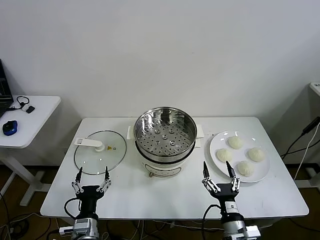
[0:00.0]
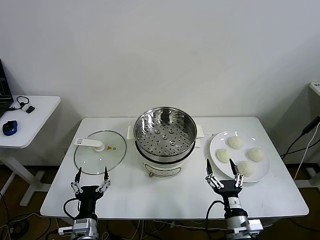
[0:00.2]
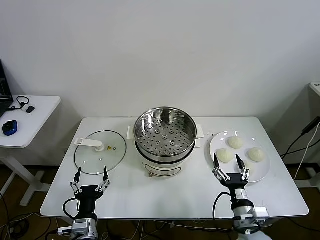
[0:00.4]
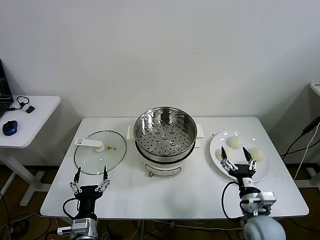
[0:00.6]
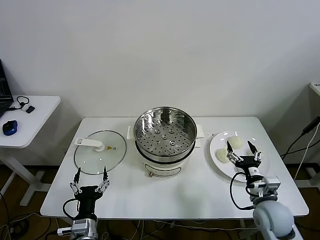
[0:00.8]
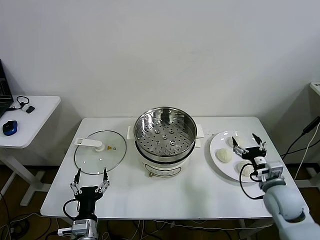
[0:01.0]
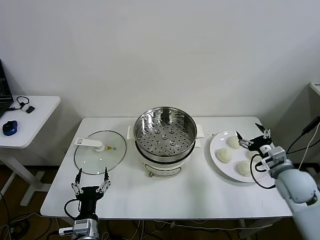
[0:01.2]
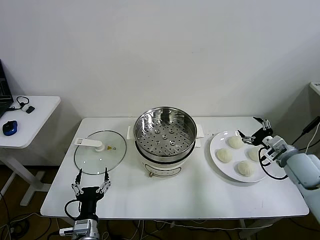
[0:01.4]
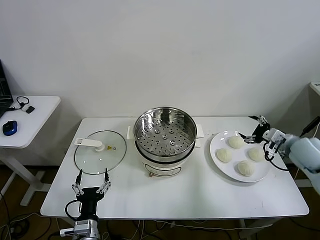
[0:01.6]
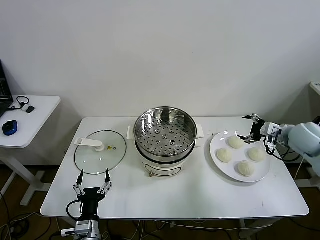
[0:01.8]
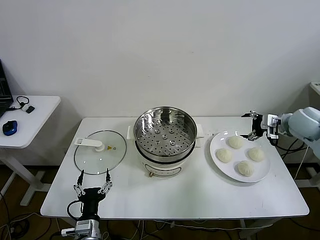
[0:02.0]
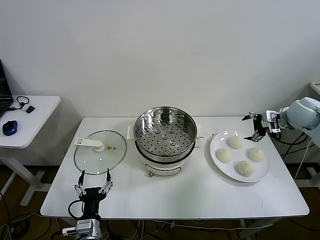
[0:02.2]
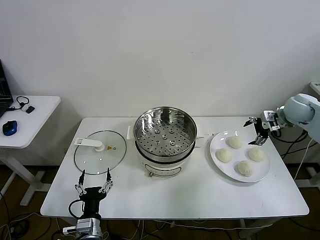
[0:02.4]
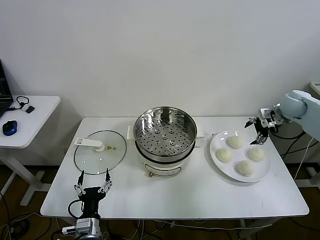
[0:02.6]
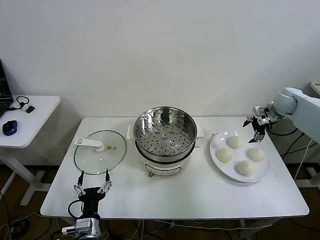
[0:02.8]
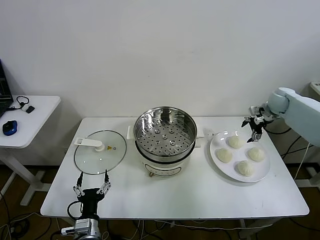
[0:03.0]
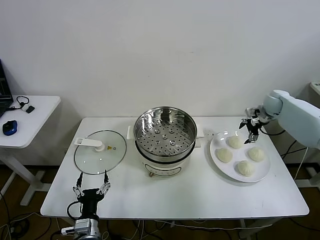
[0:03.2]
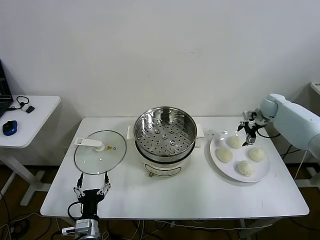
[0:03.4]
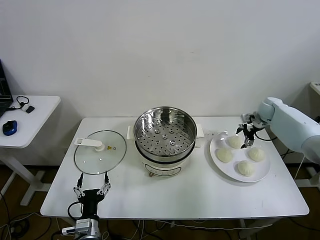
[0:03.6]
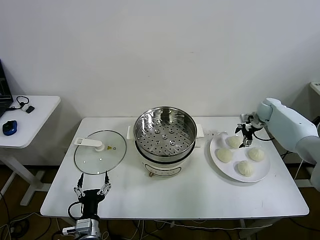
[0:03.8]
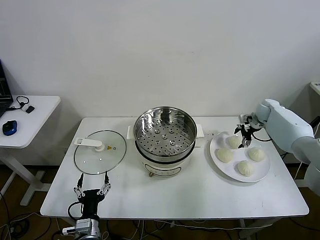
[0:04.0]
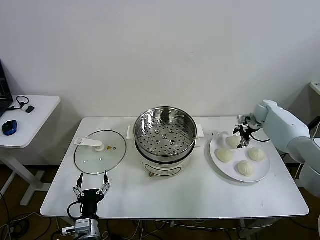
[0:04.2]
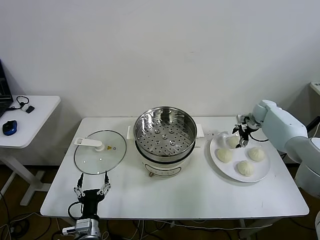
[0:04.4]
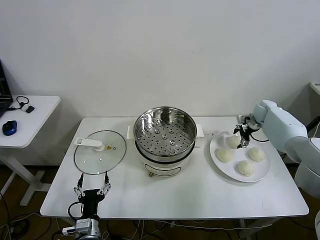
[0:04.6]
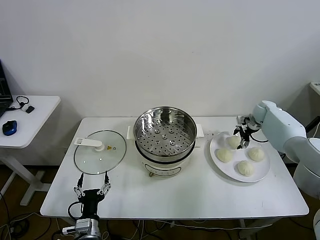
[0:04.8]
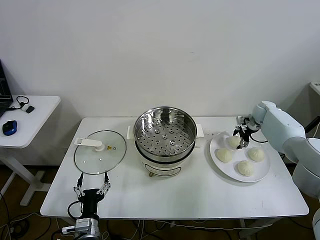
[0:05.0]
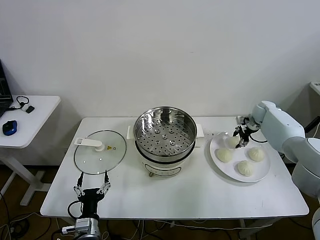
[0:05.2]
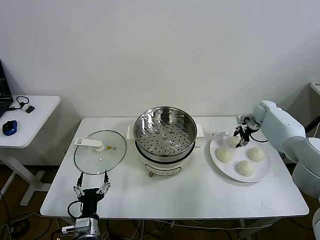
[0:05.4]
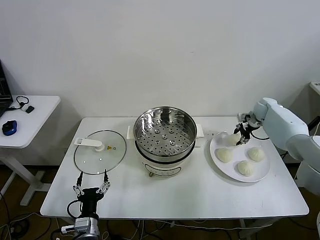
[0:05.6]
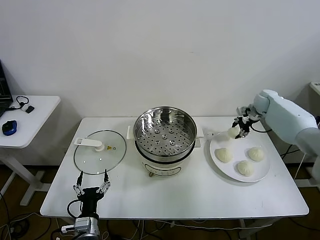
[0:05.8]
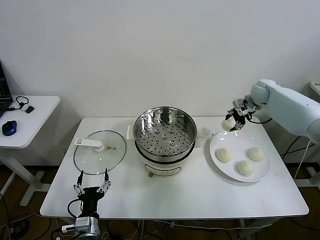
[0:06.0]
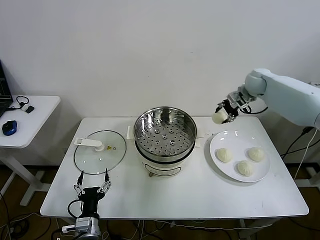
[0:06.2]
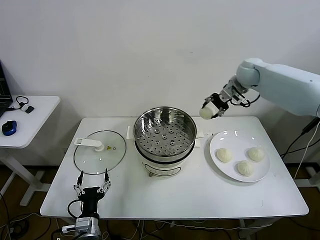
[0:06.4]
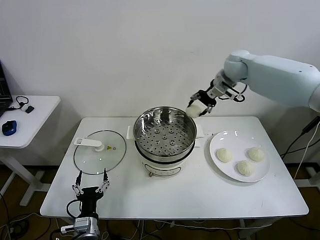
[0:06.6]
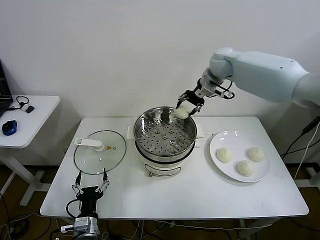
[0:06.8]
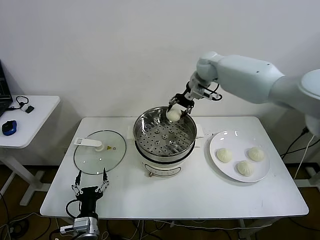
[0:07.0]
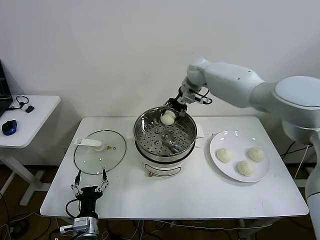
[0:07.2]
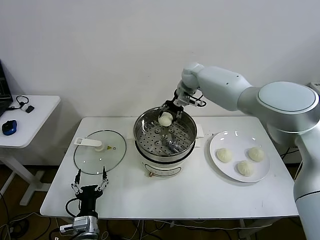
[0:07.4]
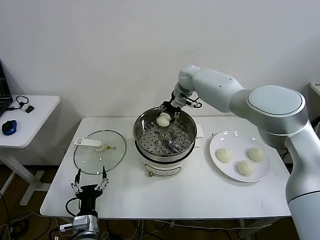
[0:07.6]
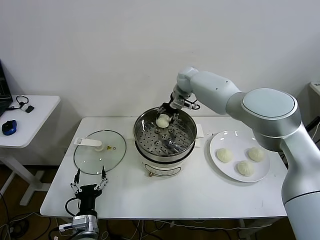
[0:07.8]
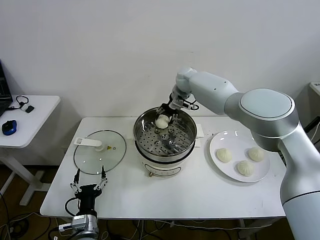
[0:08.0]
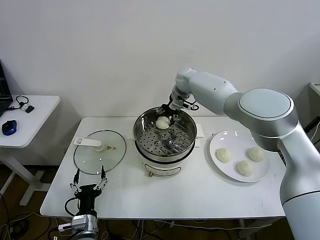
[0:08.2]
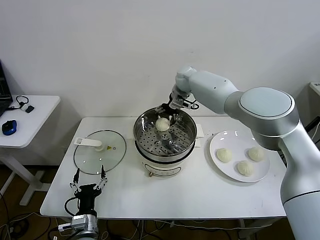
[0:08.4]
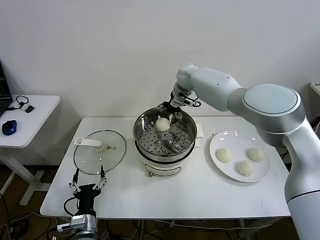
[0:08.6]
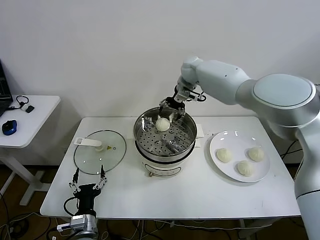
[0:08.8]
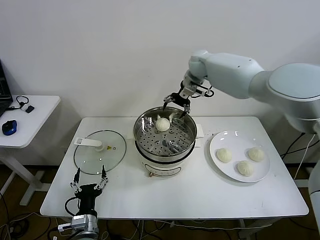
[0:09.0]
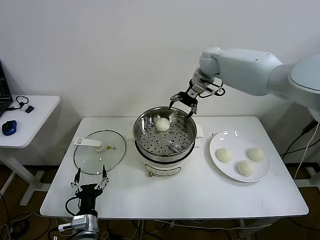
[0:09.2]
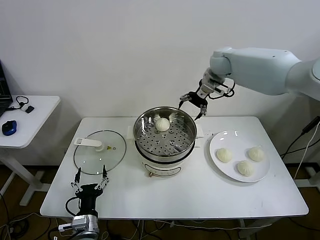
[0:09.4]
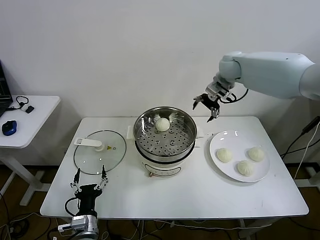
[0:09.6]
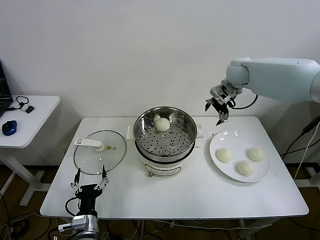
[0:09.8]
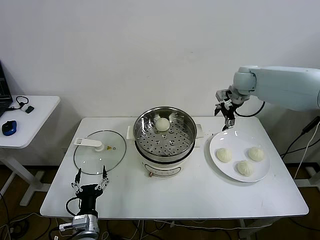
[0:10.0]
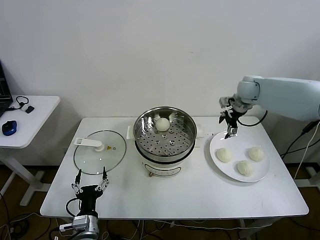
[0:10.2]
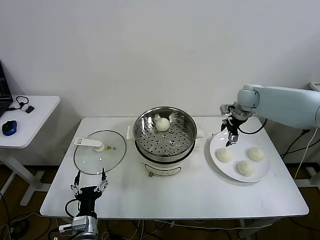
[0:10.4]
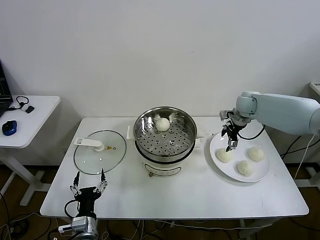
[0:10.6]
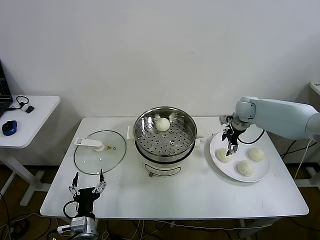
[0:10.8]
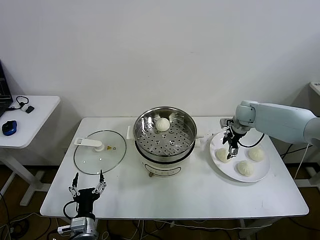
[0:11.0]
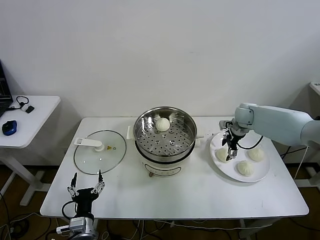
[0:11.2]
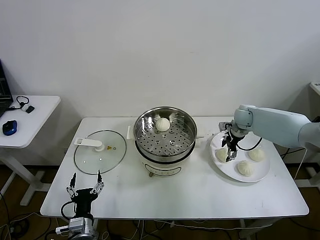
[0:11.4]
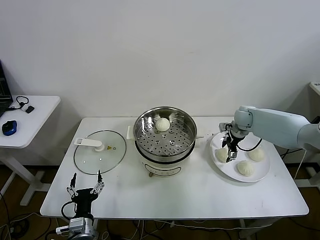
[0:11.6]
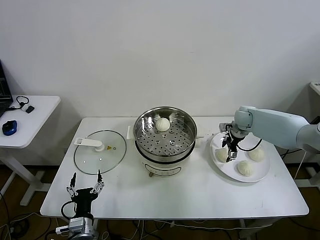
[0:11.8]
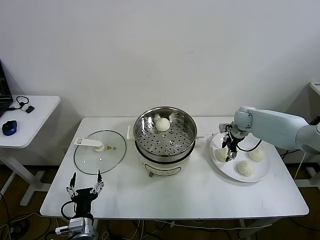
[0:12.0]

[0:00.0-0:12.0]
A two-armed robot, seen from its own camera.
Step, 0:00.0 to 0:05.2: Grasp the baozi in the plate with right gripper.
Step, 0:05.4 to 0:08.8: Place the baozi on the steamer with right gripper.
0:01.6 to 0:03.0: The right gripper heads forward, covering approximately 20 cm.
0:03.0 to 0:04.4: The right gripper is displaced downward by roughly 10 cm.
0:04.4 to 0:06.0: The right gripper travels upward by some 10 cm, and closes.
0:06.0 to 0:07.6: The right gripper heads to the left, covering about 30 cm.
0:07.6 to 0:09.0: The right gripper shifts approximately 5 cm upward, and opens its fingers.
0:09.0 to 0:10.4: The right gripper goes roughly 20 cm to the right, downward and backward.
0:10.4 to 0:12.0: The right gripper shifts about 10 cm downward.

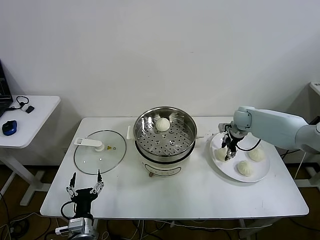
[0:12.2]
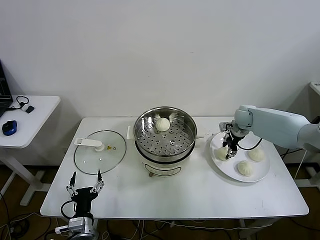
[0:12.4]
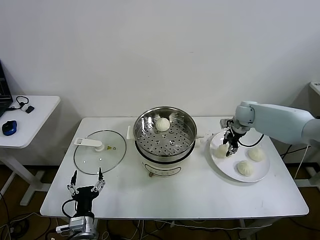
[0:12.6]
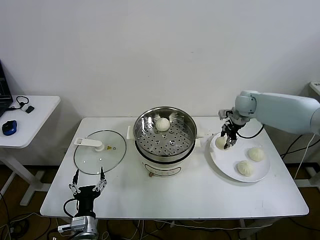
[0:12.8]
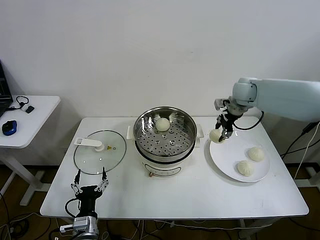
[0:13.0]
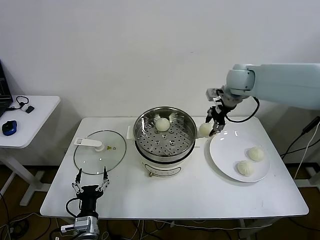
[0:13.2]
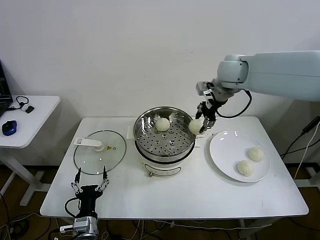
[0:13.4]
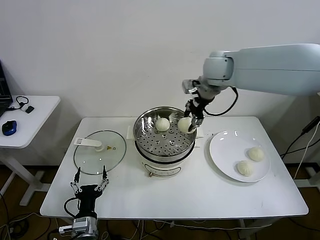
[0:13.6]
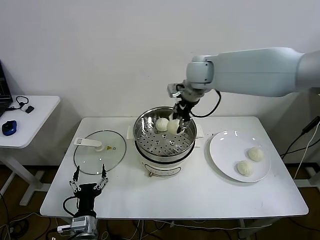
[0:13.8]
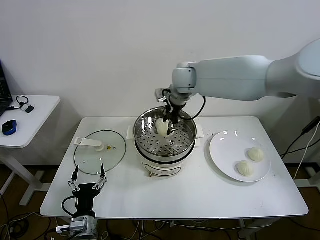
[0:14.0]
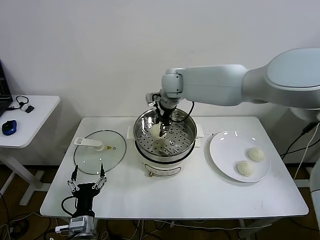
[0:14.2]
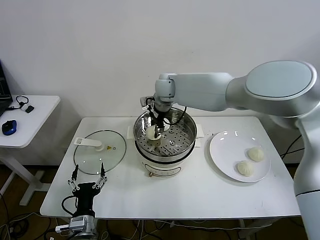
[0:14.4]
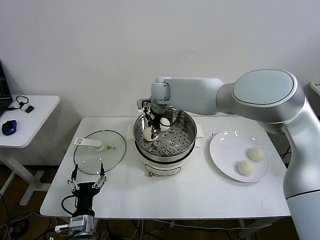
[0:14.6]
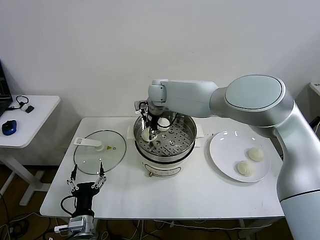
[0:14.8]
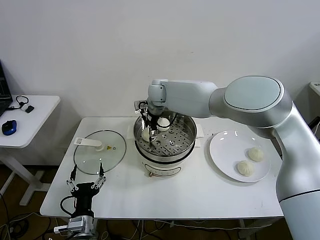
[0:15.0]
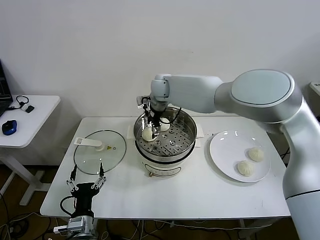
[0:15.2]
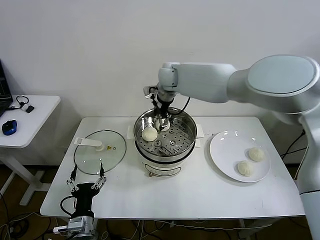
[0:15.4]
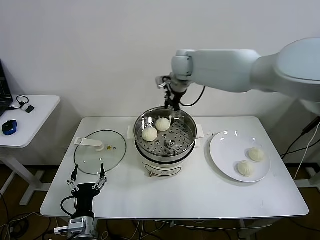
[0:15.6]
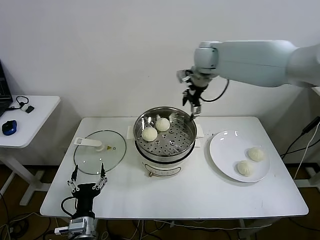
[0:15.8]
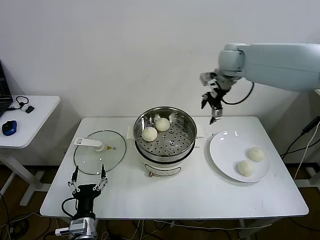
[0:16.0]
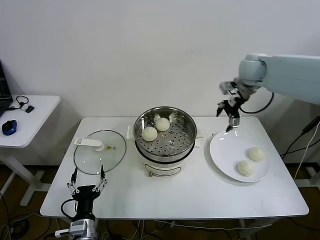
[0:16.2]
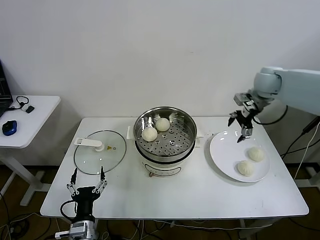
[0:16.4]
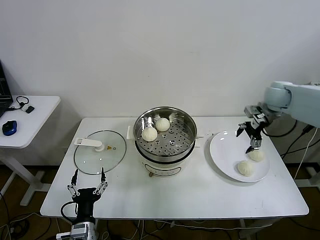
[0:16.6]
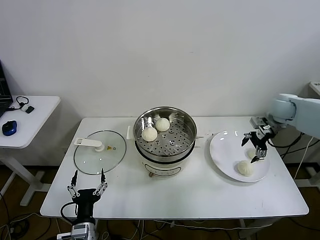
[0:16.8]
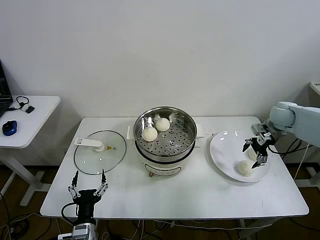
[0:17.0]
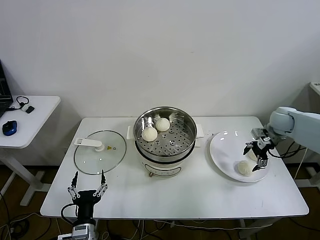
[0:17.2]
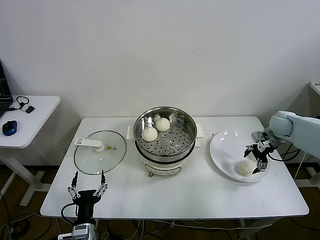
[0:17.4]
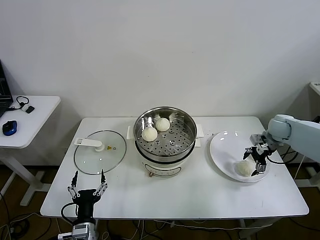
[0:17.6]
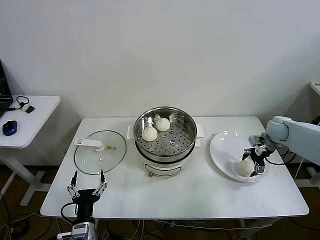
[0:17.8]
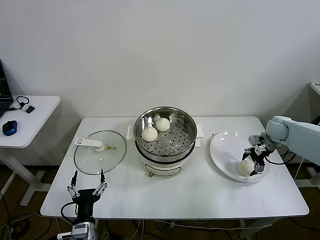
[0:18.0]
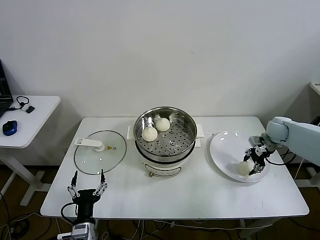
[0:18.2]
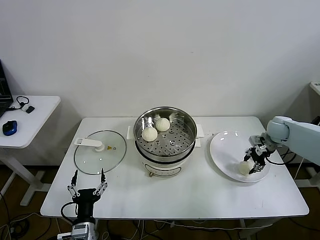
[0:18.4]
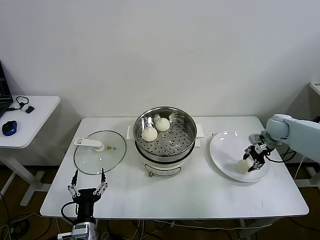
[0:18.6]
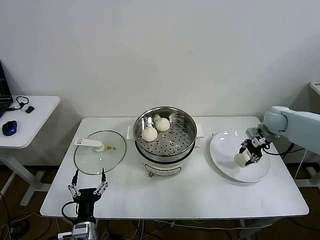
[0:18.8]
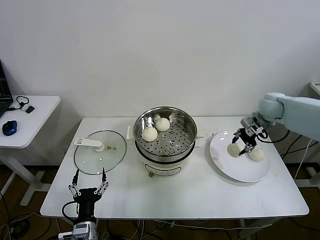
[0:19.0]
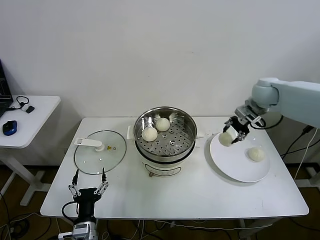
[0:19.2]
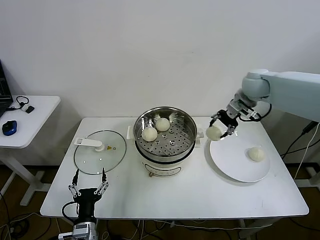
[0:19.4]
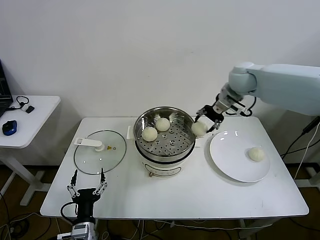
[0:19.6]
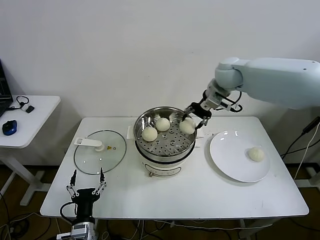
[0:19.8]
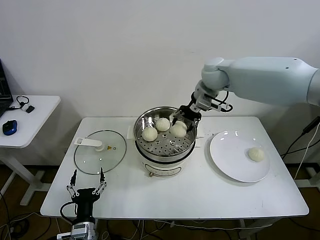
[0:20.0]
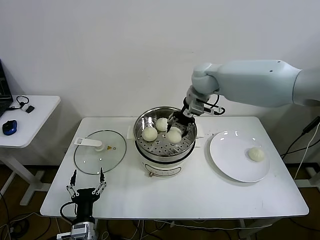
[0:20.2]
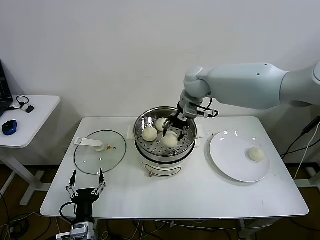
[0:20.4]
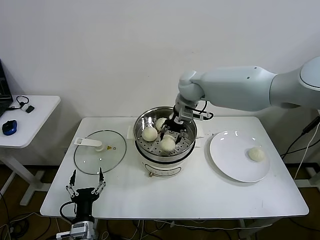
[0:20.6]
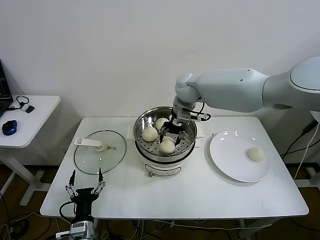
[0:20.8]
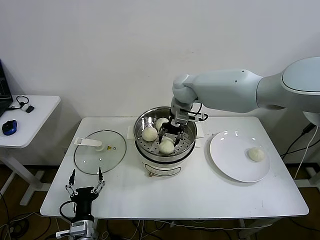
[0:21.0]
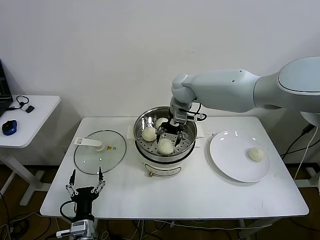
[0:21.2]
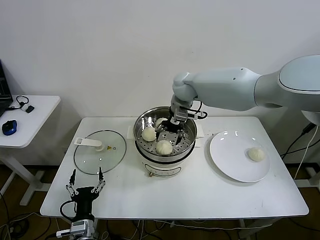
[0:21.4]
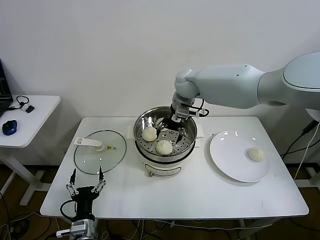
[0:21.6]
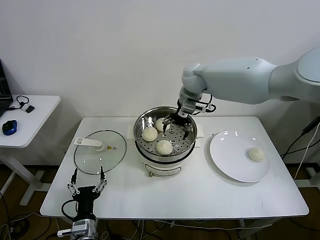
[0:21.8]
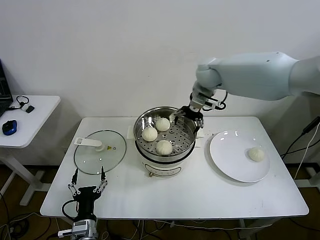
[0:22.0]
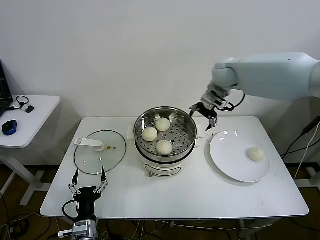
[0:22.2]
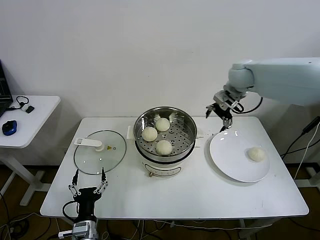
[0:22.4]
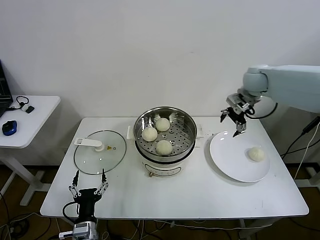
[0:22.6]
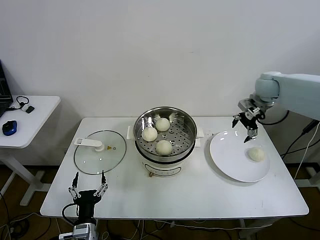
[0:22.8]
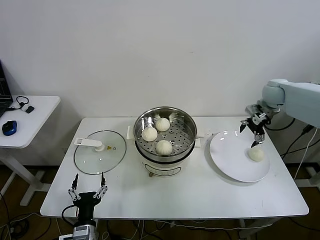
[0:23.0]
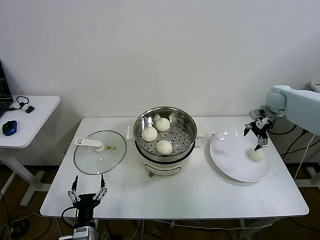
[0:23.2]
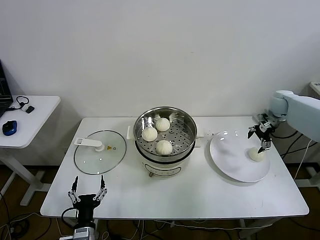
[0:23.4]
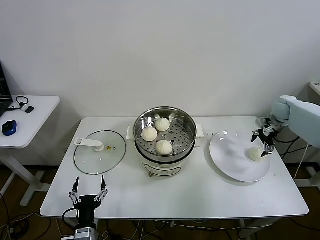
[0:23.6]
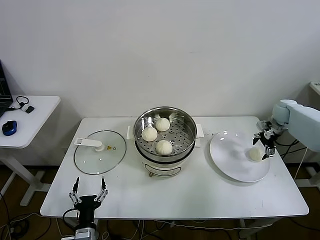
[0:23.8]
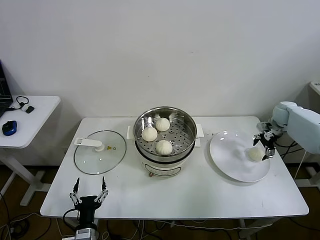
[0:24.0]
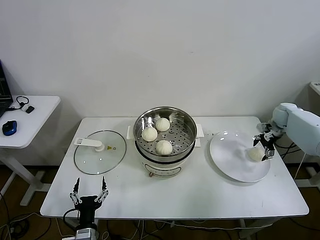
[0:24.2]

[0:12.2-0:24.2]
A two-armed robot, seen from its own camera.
Step, 0:12.4 to 0:15.2: Place the baozi on the steamer with right gripper.
Step, 0:15.4 to 0:18.2: Grasp the baozi in the plate with right gripper.
Step, 0:18.4 to 0:21.2: Place the baozi on the steamer with right gripper.
0:12.2 to 0:13.8: The right gripper shifts some 30 cm upward and to the left.
0:13.8 to 0:15.2: The right gripper is displaced to the left, downward and forward by approximately 15 cm, and opens.
0:15.2 to 0:16.6: The right gripper moves to the right, approximately 40 cm.
0:16.6 to 0:18.2: The right gripper goes some 15 cm downward and to the right, and closes.
0:18.2 to 0:19.8: The right gripper is displaced to the left and upward by approximately 30 cm.
0:19.8 to 0:21.2: The right gripper travels to the left and downward by about 15 cm.
0:21.2 to 0:22.6: The right gripper goes roughly 25 cm to the right, and opens up.
0:22.6 to 0:24.2: The right gripper is displaced to the right and downward by about 25 cm.
